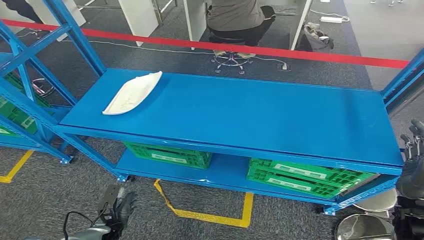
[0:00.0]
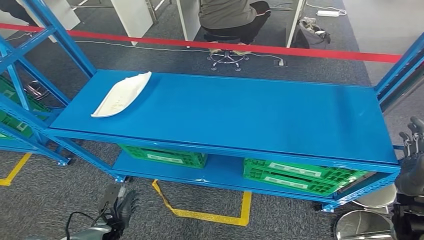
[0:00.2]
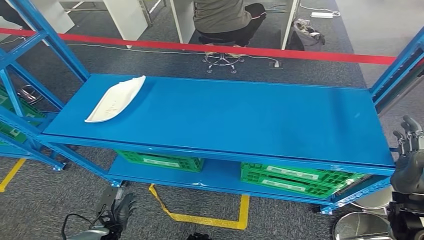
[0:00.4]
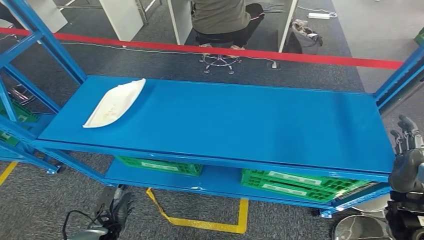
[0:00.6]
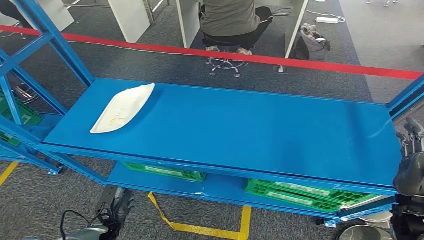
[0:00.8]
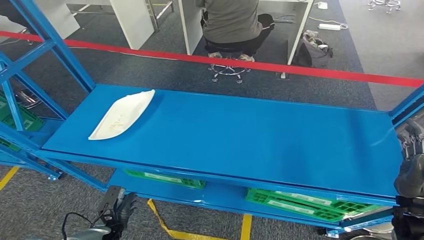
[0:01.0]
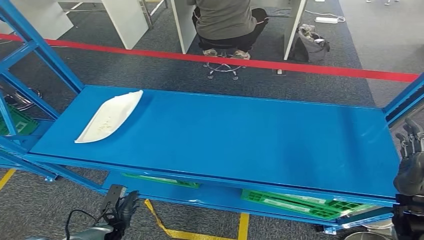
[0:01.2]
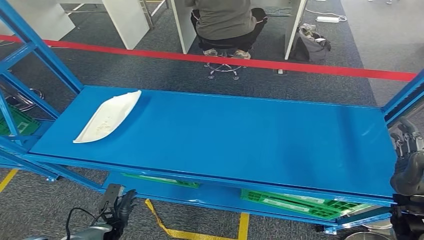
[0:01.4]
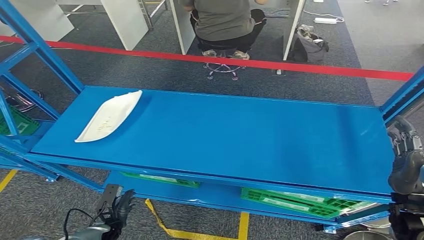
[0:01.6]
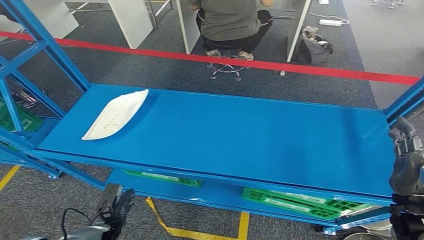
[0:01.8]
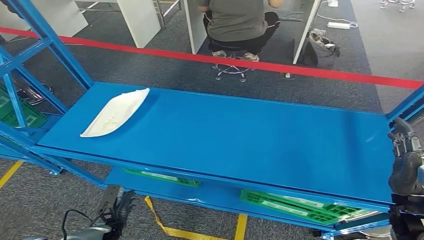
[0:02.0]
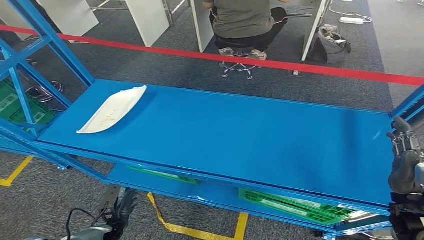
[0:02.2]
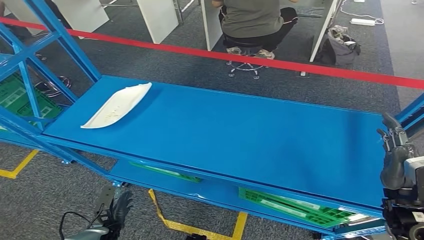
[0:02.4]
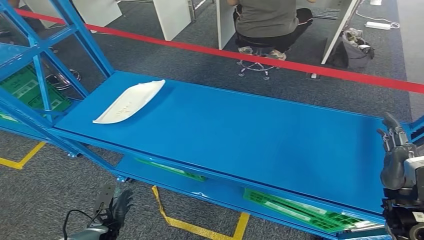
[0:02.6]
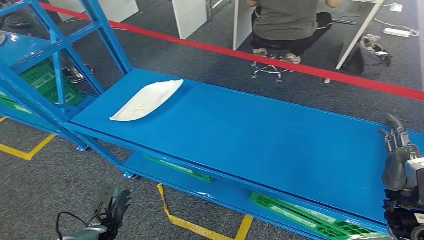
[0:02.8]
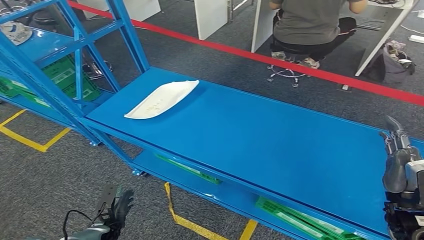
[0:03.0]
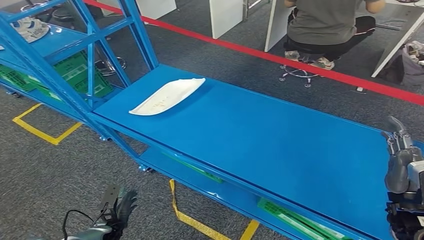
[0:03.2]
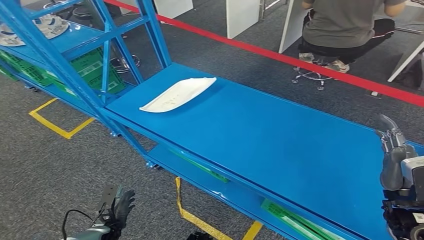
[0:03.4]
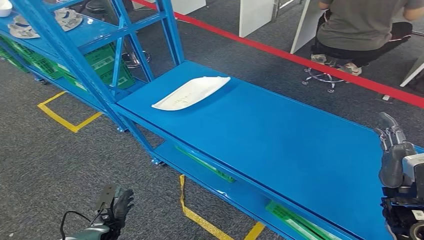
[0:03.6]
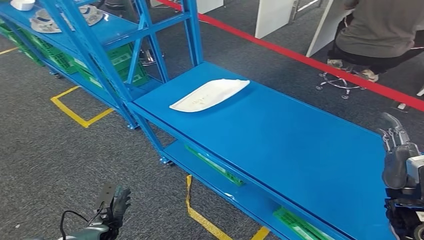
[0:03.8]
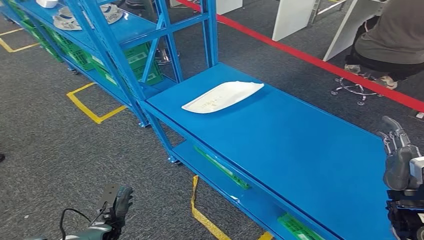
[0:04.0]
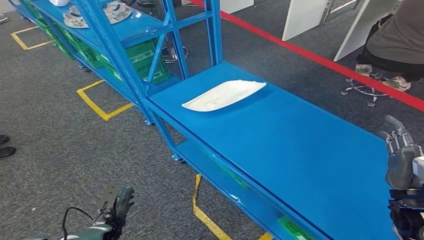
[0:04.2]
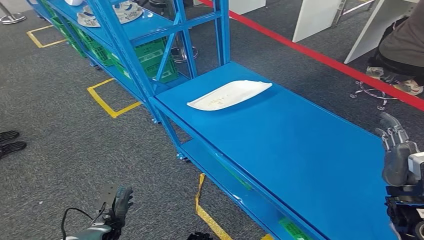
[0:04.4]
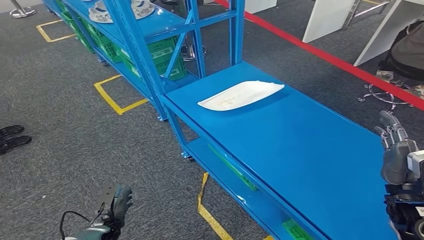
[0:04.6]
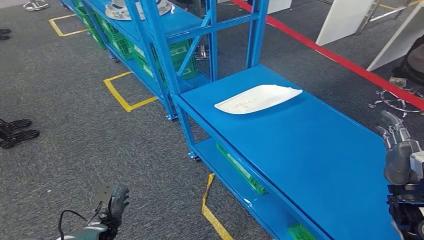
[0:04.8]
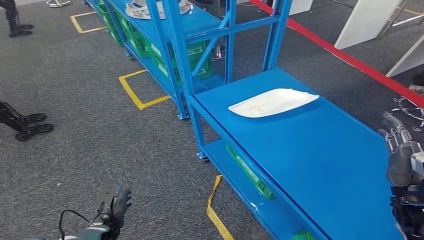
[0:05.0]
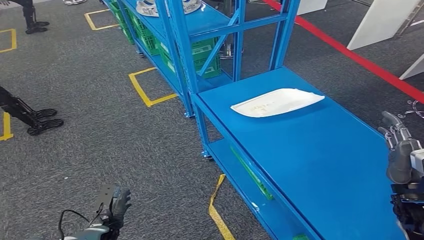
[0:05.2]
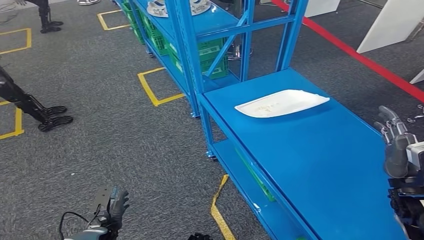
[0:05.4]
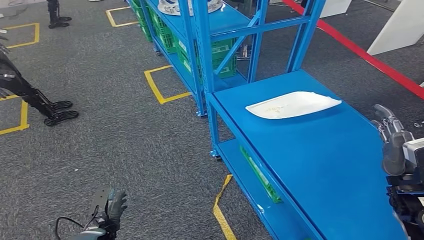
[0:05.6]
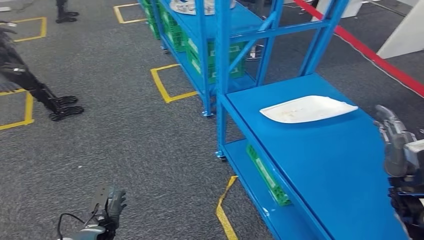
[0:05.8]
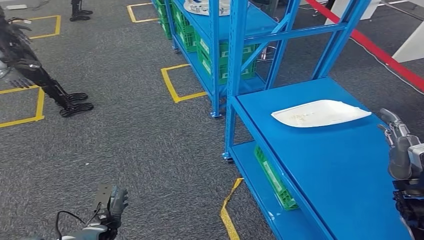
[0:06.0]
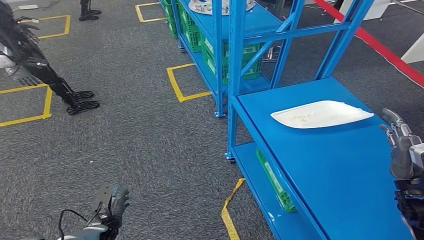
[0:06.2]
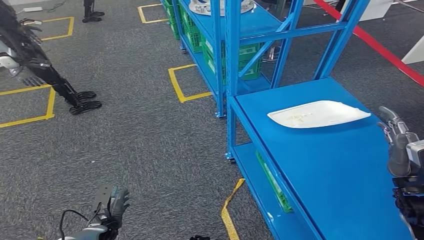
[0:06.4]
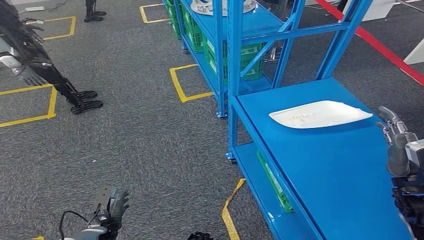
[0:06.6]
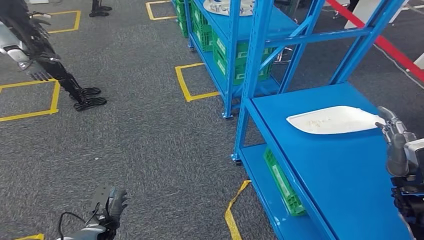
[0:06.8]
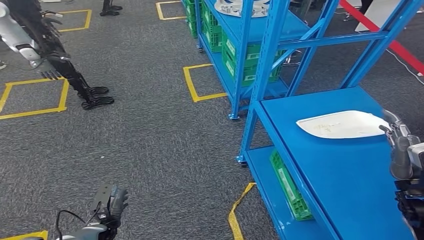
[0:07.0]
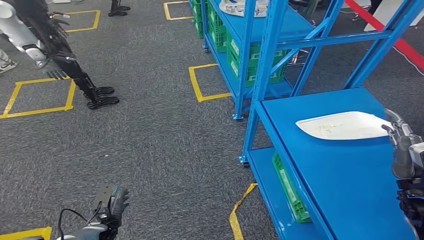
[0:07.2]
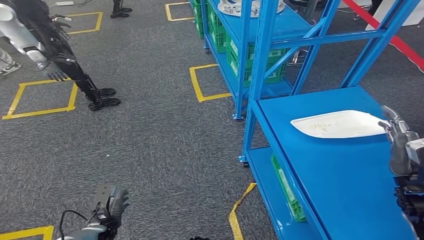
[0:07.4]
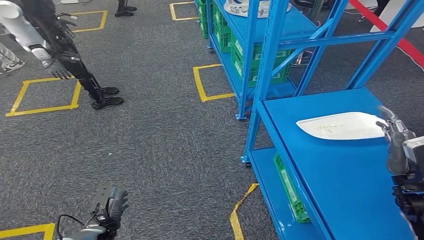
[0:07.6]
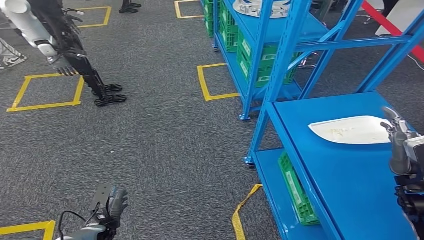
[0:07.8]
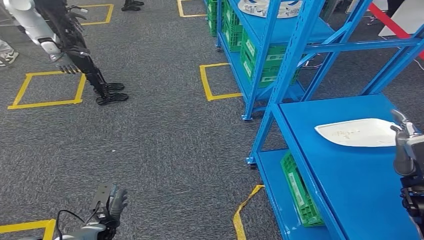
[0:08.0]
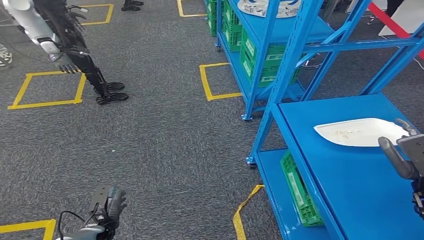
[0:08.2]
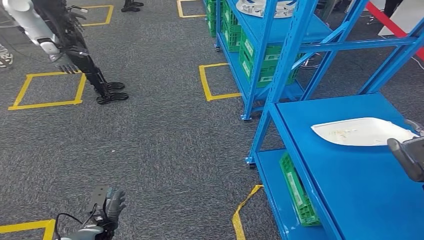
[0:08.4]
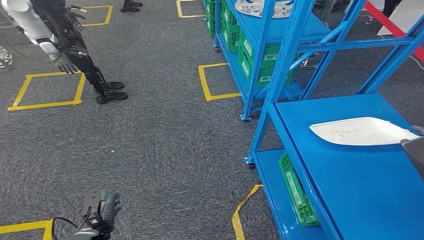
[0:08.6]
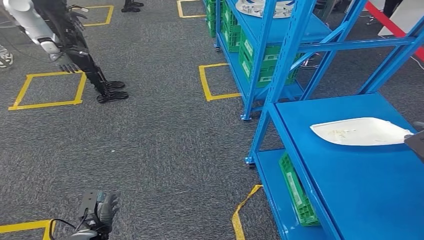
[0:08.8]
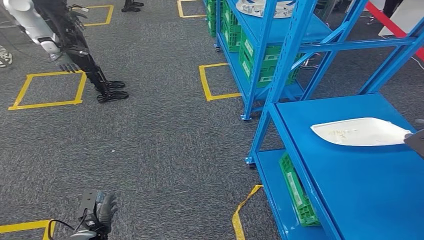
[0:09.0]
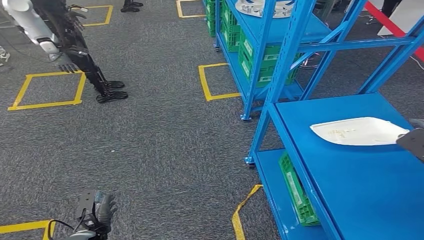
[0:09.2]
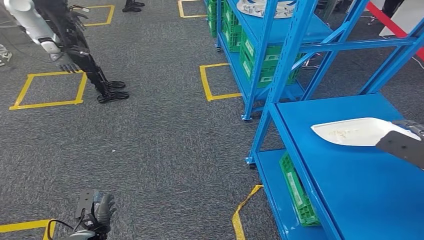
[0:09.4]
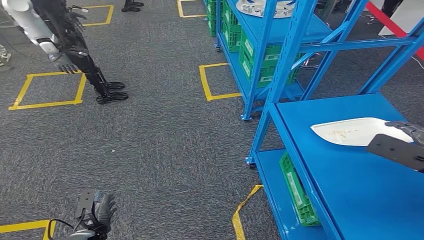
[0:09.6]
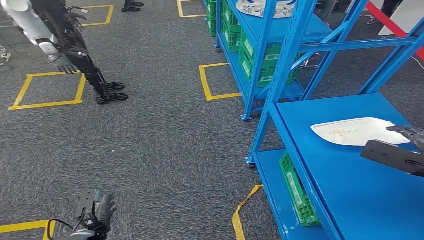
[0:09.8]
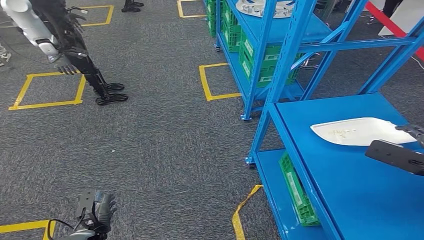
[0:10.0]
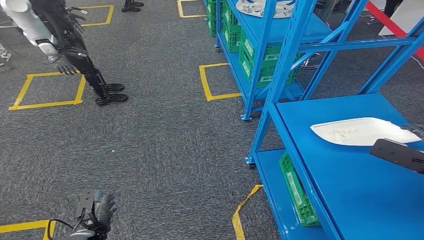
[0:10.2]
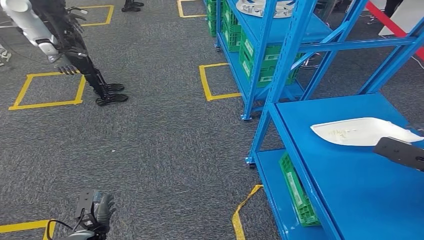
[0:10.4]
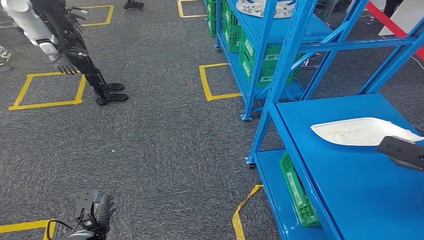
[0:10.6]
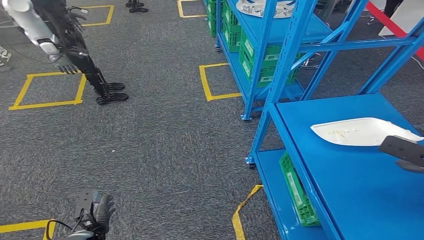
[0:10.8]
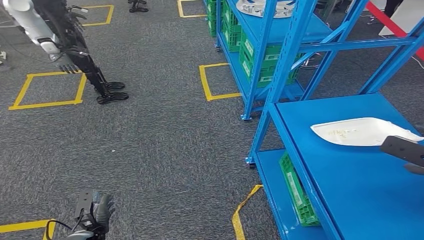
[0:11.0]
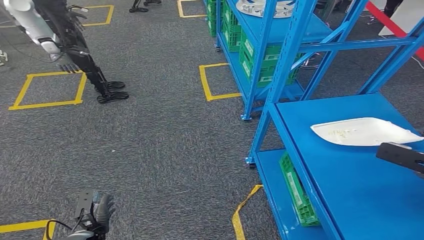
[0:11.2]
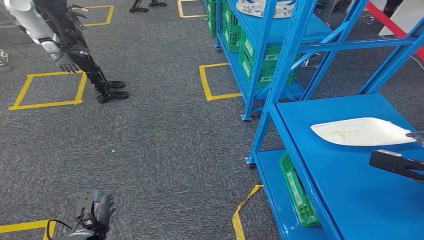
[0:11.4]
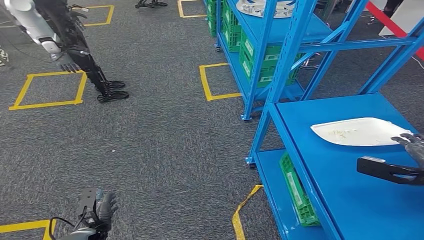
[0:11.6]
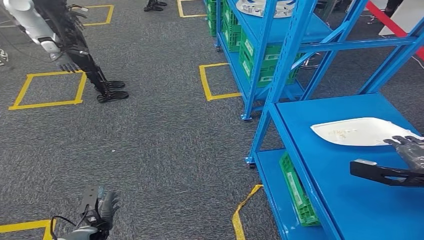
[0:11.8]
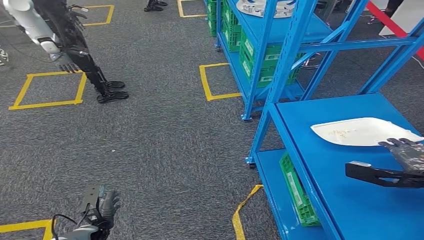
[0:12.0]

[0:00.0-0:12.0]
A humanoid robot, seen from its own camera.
0:10.4 to 0:12.0: The right hand shifts about 5 cm downward.

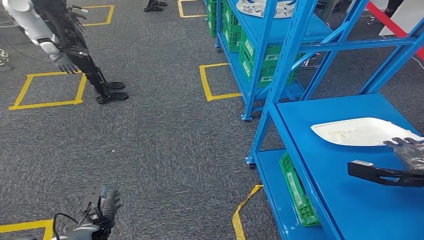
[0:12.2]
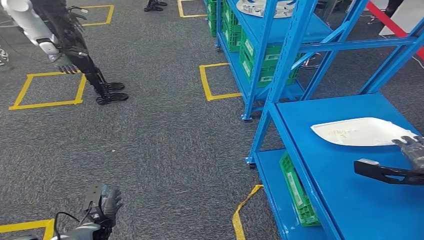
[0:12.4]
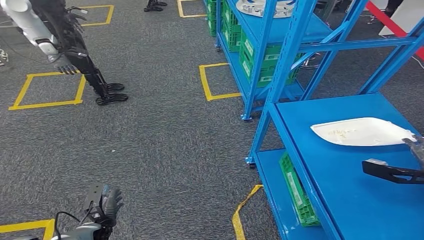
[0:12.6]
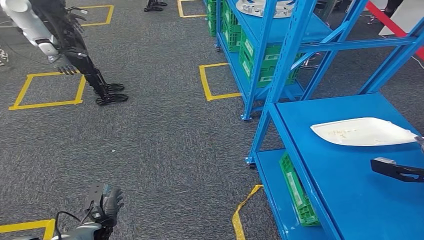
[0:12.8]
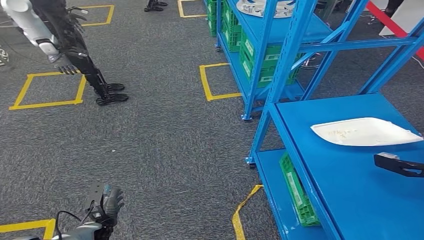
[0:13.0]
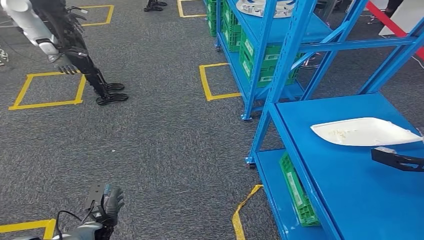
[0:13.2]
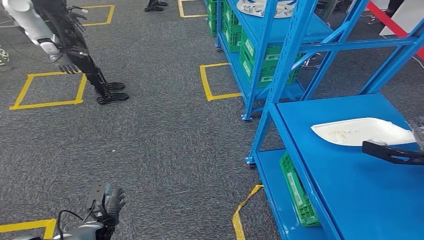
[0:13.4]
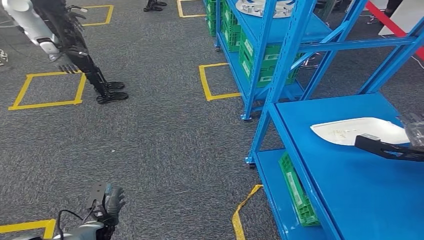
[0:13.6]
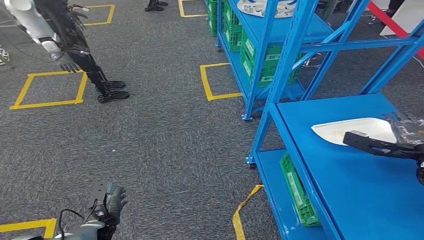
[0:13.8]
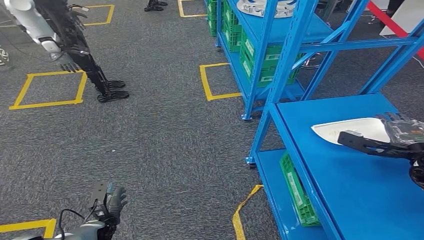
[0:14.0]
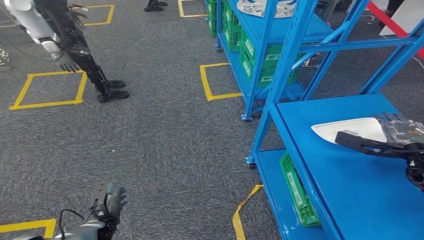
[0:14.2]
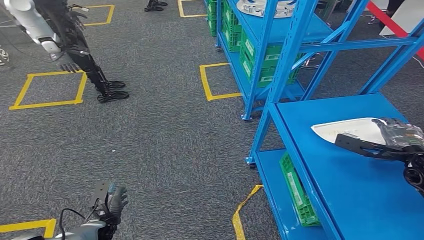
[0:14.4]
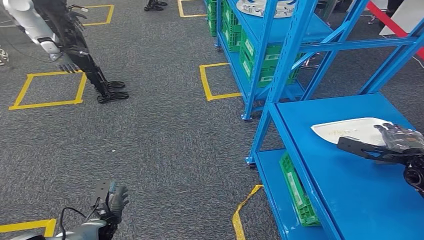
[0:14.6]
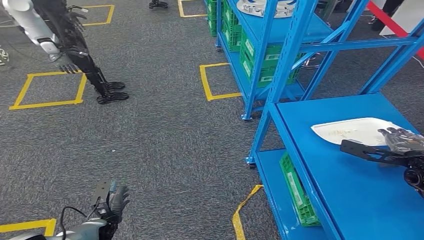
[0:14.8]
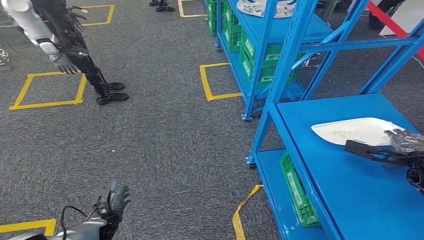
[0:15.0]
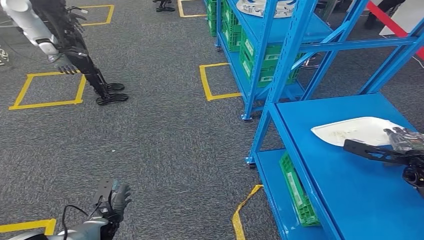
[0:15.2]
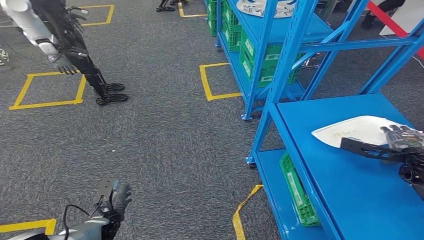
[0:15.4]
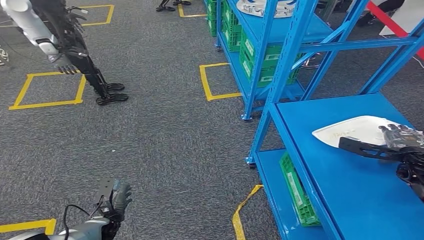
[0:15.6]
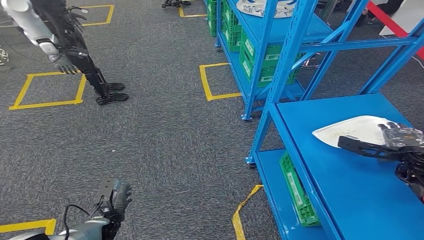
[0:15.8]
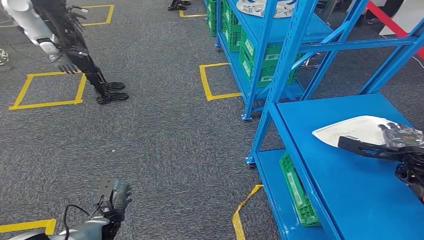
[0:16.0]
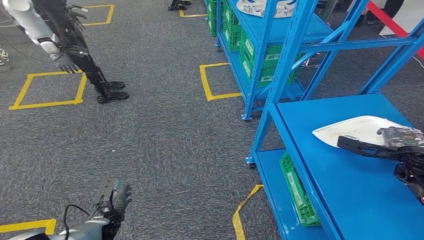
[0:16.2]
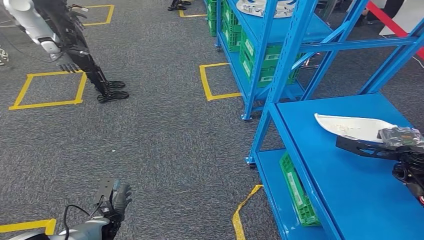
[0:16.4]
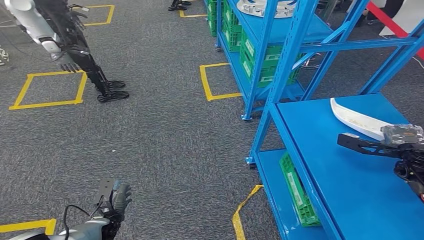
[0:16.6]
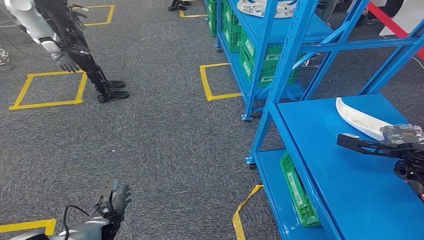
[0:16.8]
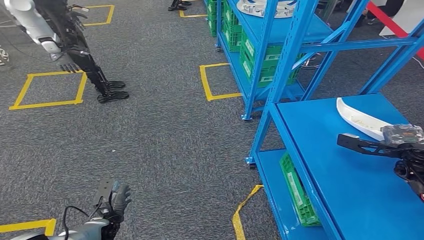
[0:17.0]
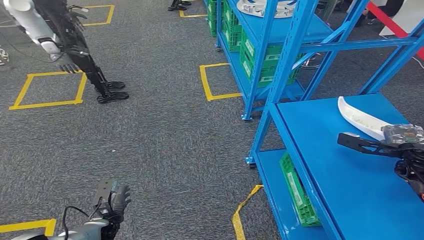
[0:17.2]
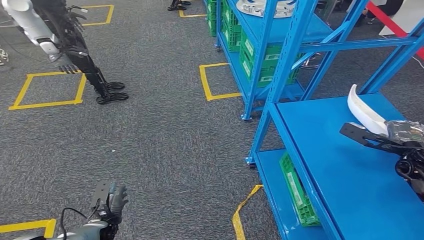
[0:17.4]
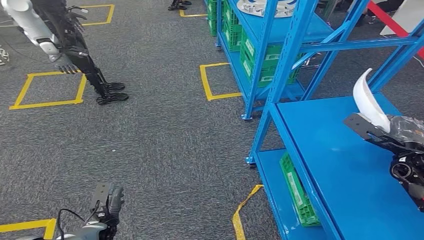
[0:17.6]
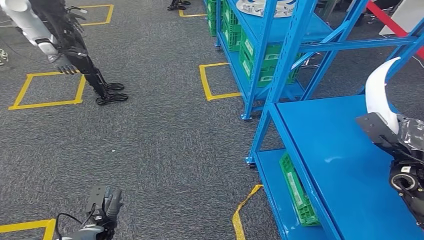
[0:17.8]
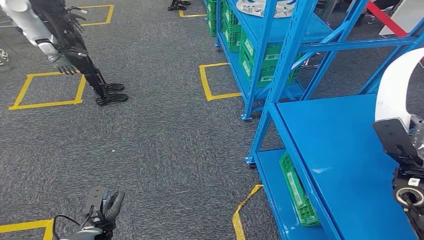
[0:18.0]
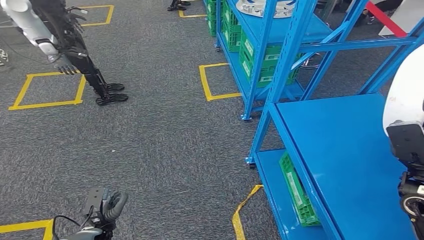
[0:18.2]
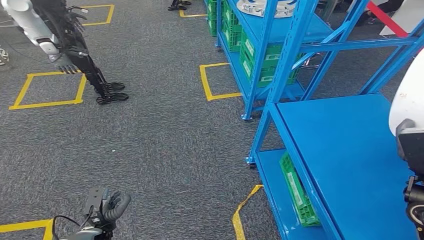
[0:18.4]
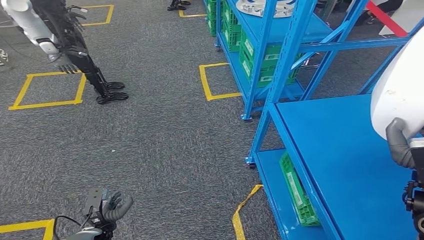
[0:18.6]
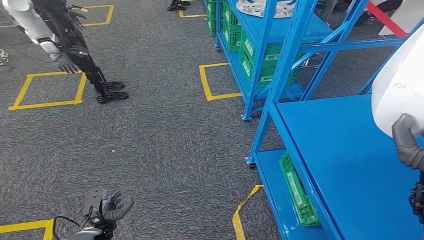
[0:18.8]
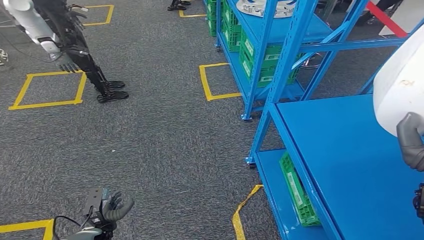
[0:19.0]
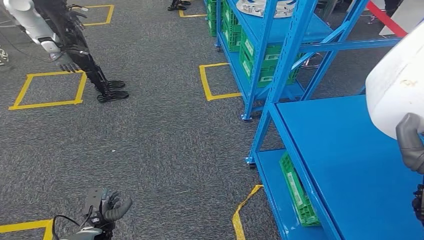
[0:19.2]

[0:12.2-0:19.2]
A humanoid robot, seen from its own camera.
Step, 0:12.2 to 0:18.6: Pick up the small parts from the shelf.
0:12.2 to 0:13.6: The right hand travels forward by about 5 cm.
0:13.6 to 0:16.4: The hands move only a little.
0:16.4 to 0:17.8: The right hand ends up roughly 5 cm from where it was.
0:17.8 to 0:19.2: The right hand goes some 20 cm backward and upward.
